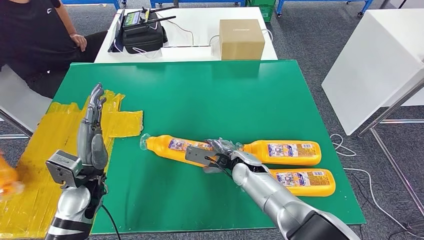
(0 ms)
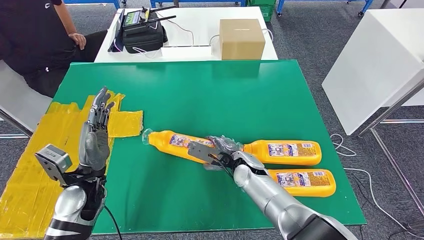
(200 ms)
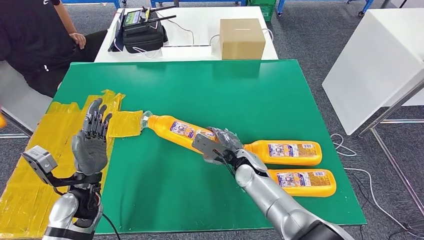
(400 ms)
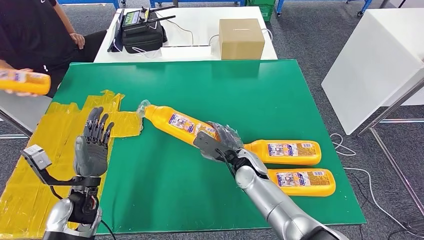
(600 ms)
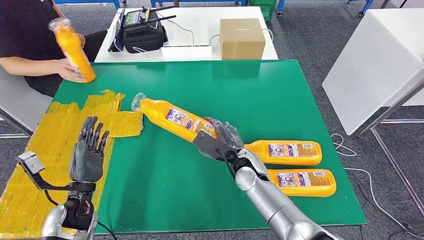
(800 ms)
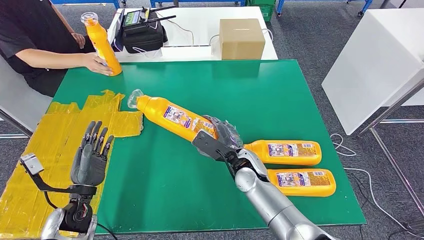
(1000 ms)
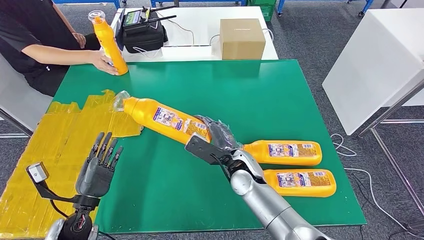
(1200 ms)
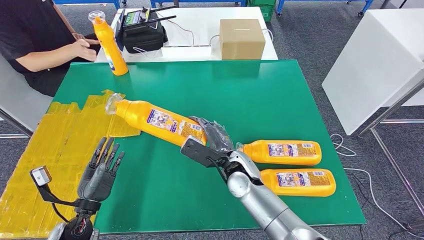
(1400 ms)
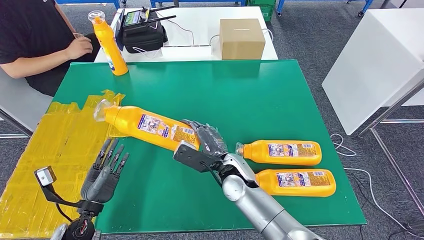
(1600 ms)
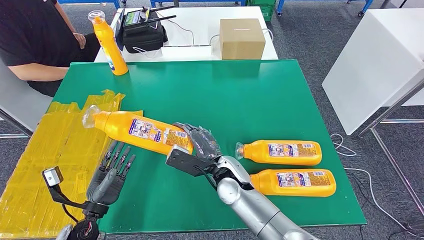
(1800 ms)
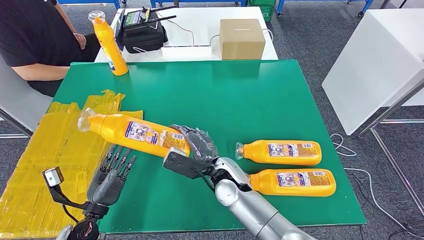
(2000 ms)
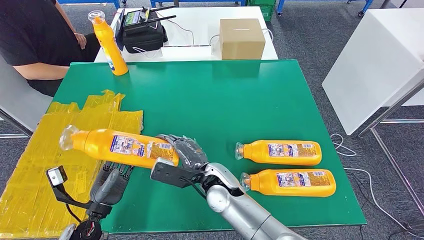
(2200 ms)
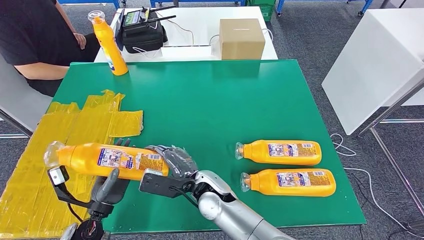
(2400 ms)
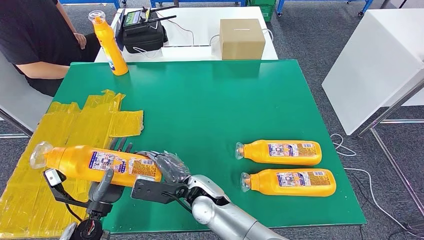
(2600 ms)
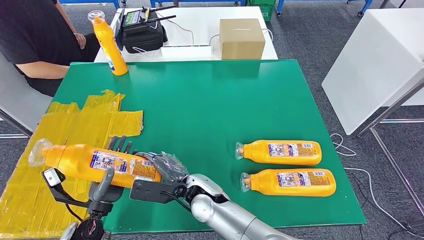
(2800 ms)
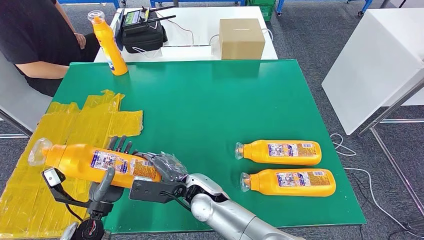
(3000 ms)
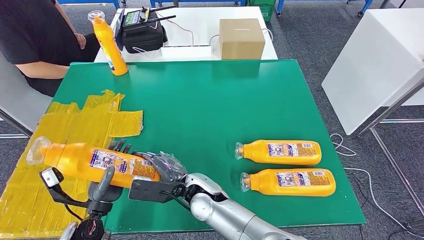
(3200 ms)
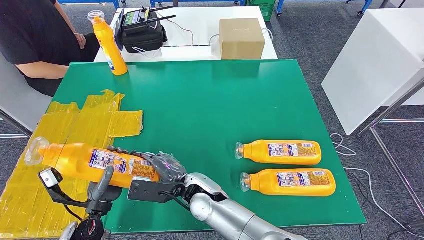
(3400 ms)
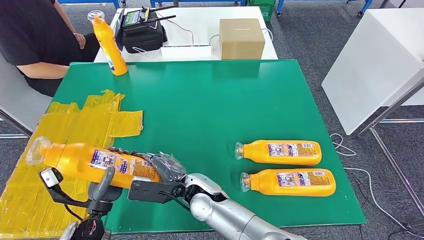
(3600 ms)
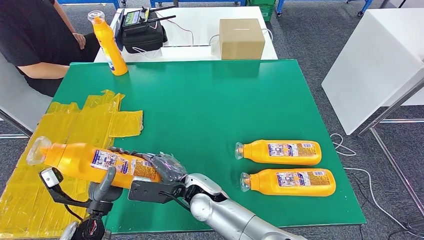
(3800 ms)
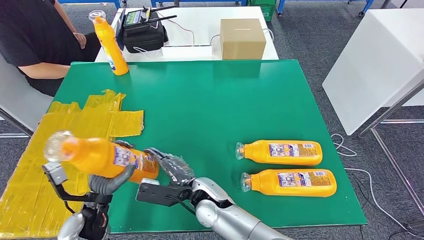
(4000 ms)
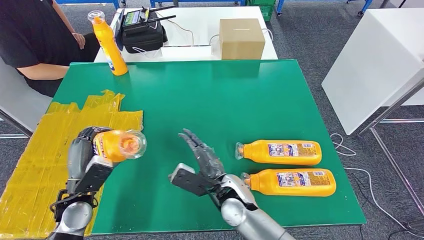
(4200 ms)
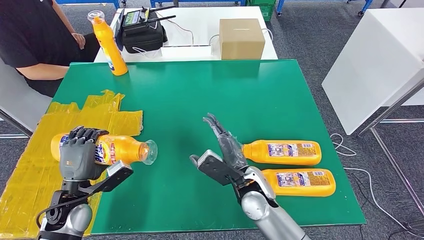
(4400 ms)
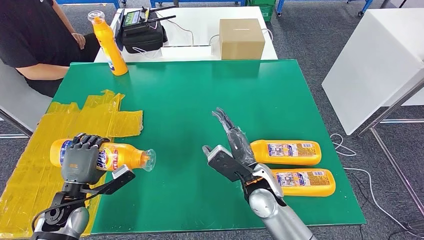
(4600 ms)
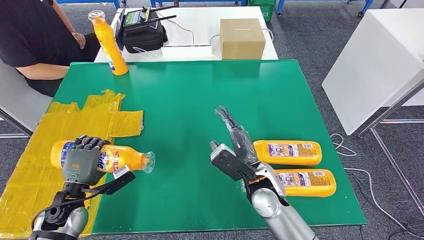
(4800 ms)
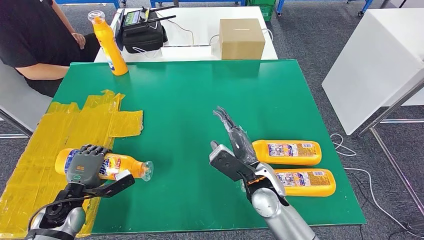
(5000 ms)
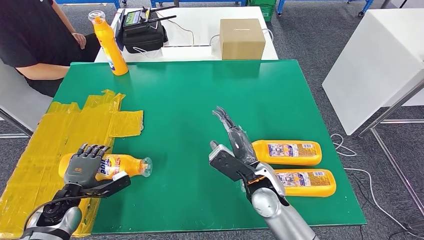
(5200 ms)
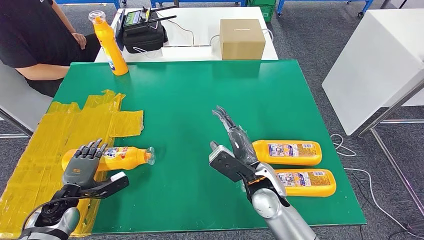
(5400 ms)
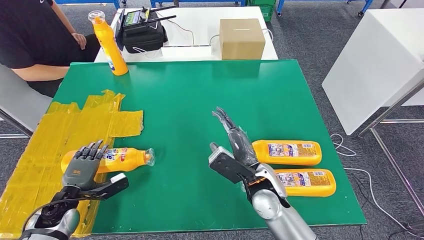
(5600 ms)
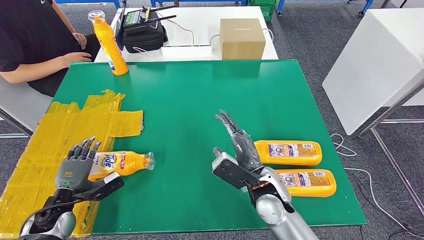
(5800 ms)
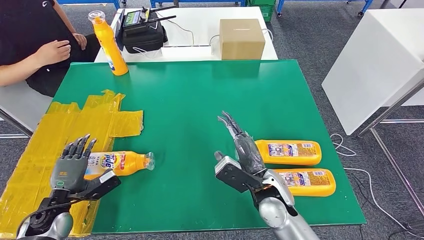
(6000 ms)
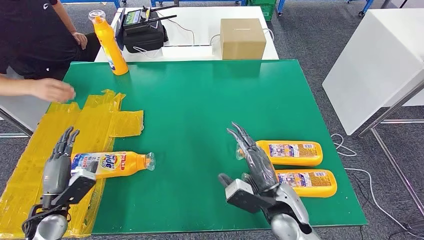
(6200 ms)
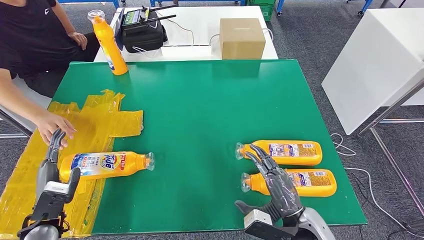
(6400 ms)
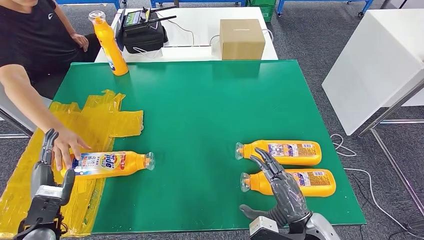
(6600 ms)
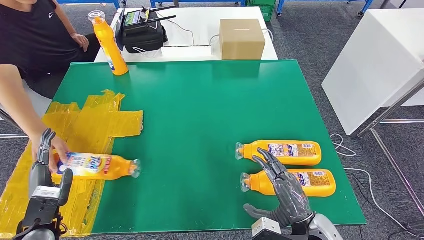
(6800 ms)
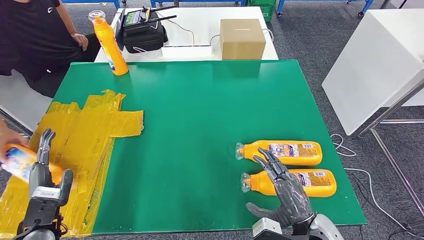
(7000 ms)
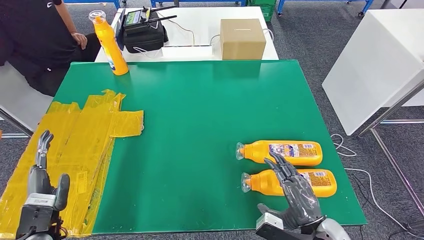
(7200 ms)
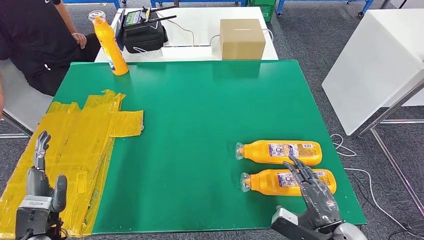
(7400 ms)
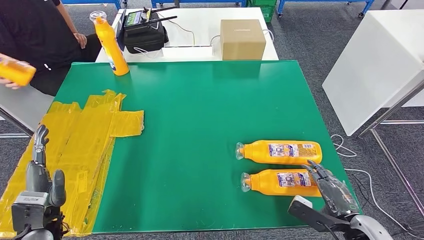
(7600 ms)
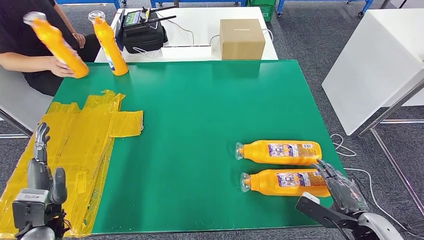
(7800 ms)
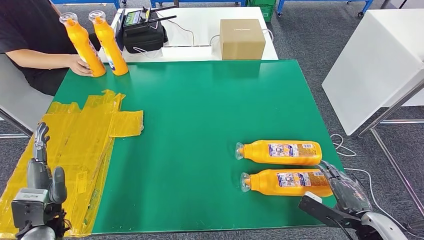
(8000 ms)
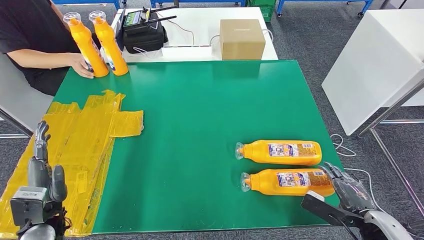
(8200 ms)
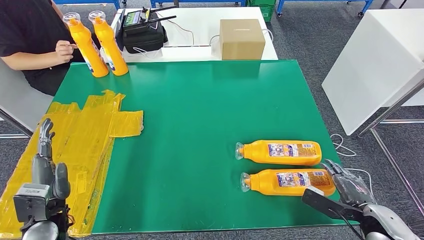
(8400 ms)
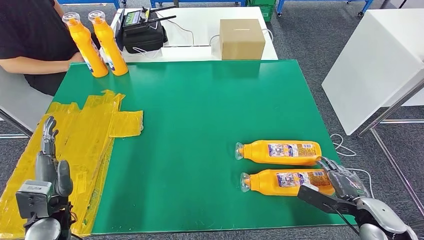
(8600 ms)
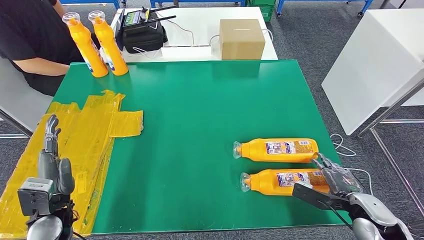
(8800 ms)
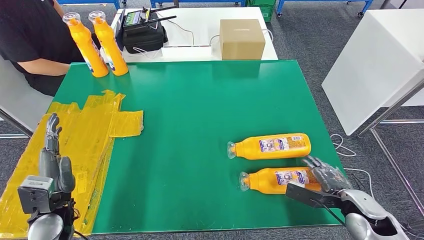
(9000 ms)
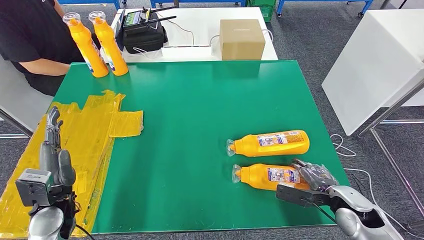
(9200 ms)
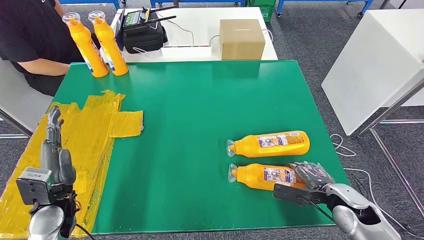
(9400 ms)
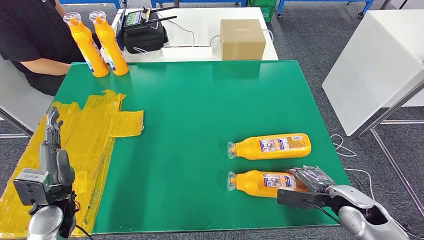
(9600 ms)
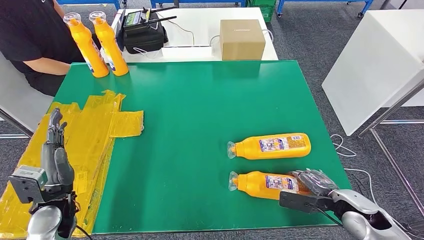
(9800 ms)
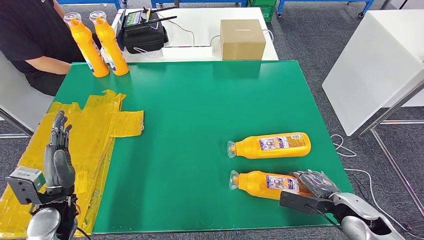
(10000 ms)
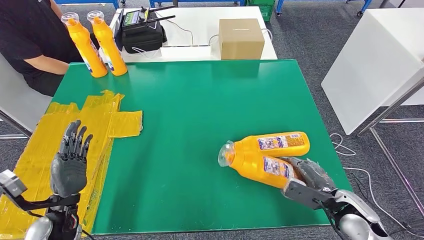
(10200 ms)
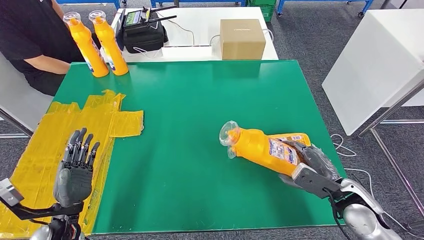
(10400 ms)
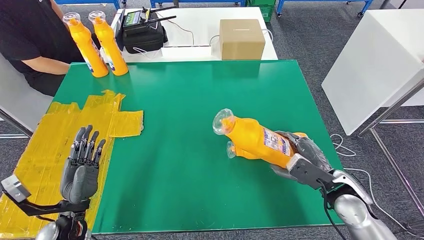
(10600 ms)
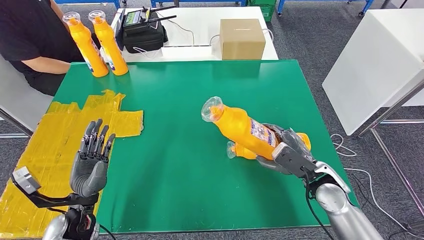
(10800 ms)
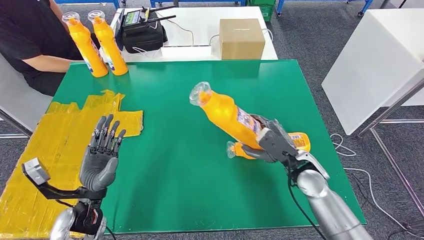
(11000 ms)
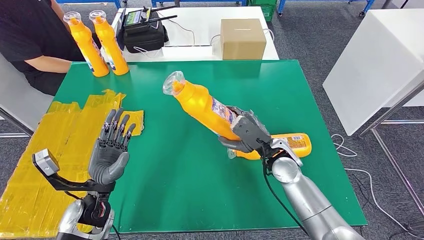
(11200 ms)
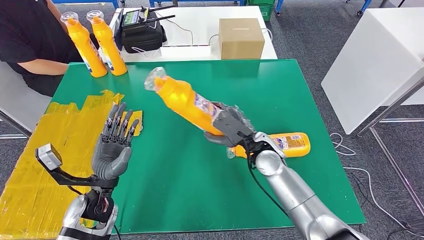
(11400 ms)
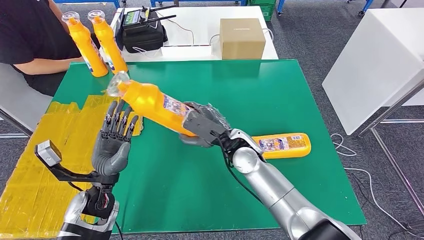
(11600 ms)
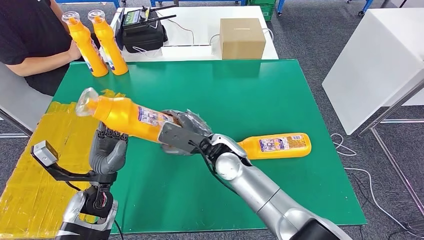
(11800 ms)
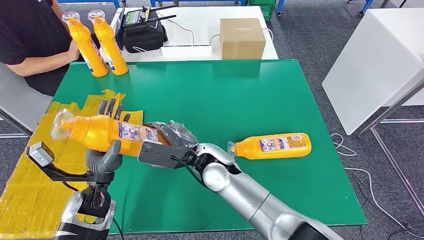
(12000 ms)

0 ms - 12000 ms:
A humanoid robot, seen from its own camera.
Step, 0 ms - 2800 ms: Pick up the fast-moving consumer goods bottle from the table.
Step, 3200 ms - 5600 ms: Flip the fast-moving consumer goods bottle to the front side.
Step, 5800 ms - 11800 ms: Pick up the fast-moving consumer goods bottle from the table.
0 ms - 1600 ms: The left hand goes some 10 cm downward and backward. Meanwhile the right hand ends up approximately 5 cm from where it was.
1600 ms - 3000 ms: The right hand goes roughly 10 cm to the left and backward.
3000 ms - 4400 ms: The right hand is displaced to the right by approximately 10 cm. Meanwhile the left hand changes place by about 5 cm.
4400 ms - 6000 ms: The left hand shifts some 10 cm to the left and downward.
6000 ms - 7600 ms: The right hand heads to the right and backward, covering some 25 cm. The left hand shifts about 10 cm upward and backward.
7600 ms - 9000 ms: The right hand goes roughly 5 cm forward.
9000 ms - 10400 ms: The right hand moves about 5 cm.

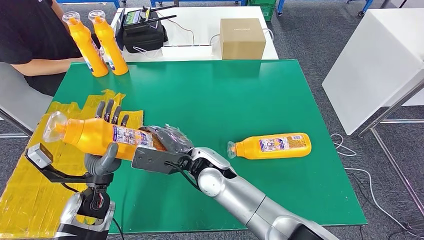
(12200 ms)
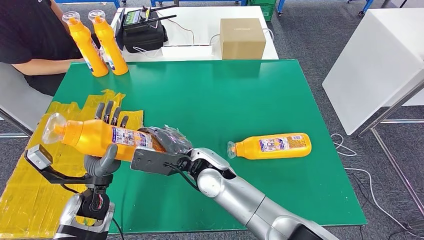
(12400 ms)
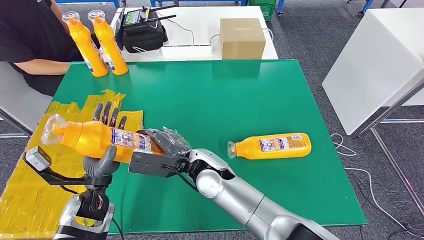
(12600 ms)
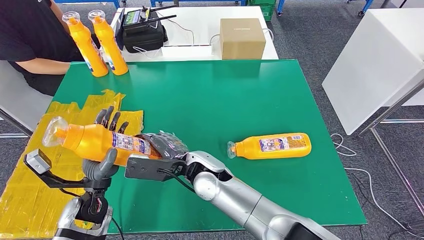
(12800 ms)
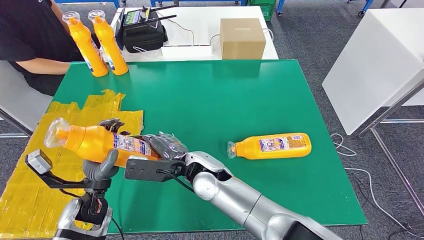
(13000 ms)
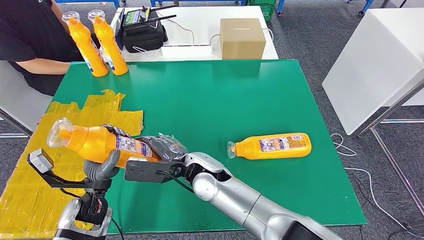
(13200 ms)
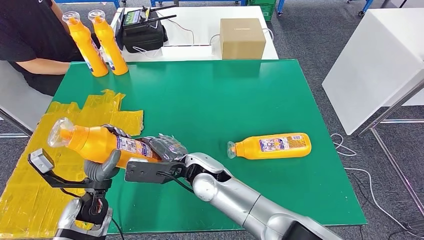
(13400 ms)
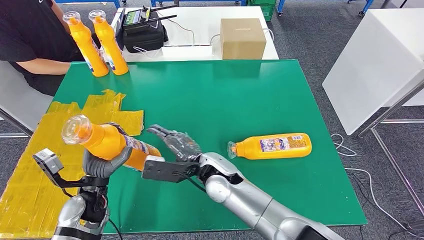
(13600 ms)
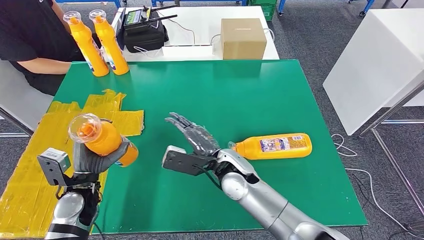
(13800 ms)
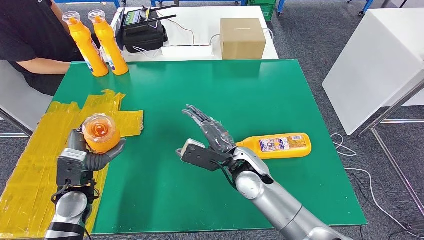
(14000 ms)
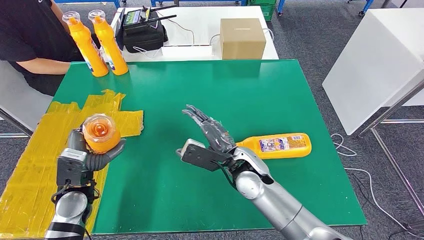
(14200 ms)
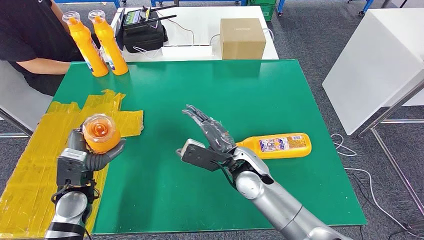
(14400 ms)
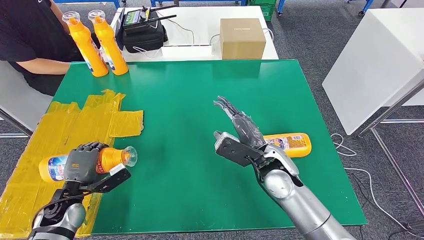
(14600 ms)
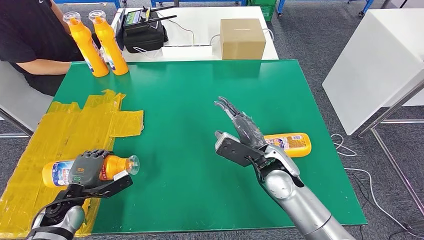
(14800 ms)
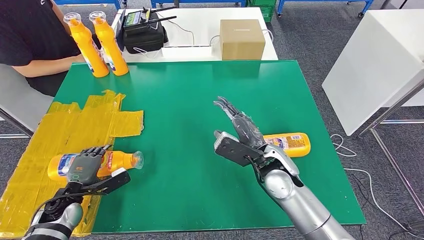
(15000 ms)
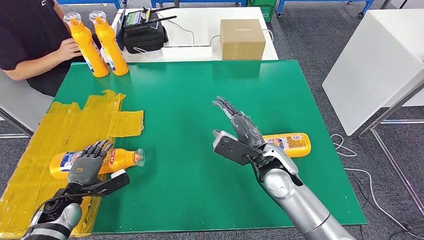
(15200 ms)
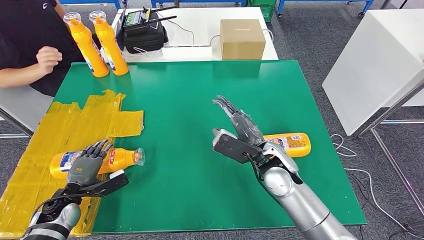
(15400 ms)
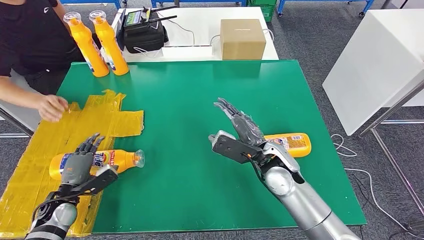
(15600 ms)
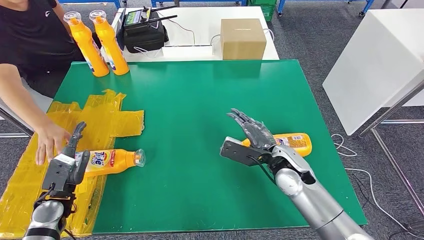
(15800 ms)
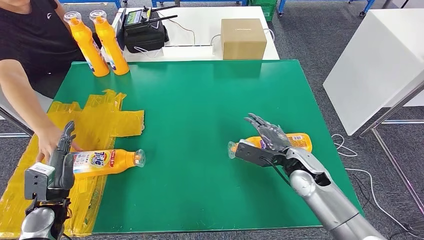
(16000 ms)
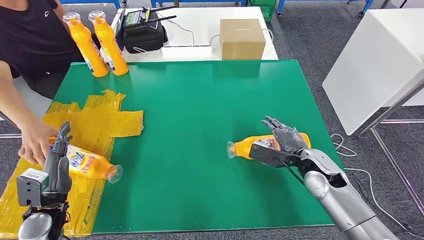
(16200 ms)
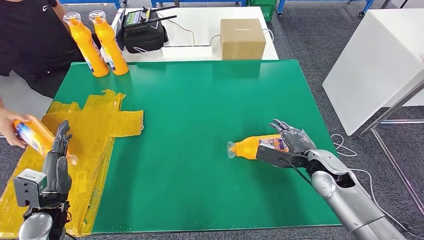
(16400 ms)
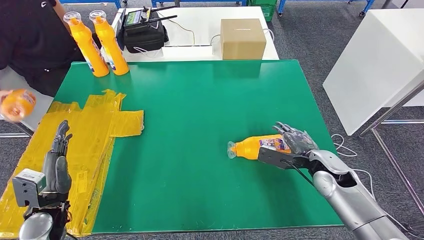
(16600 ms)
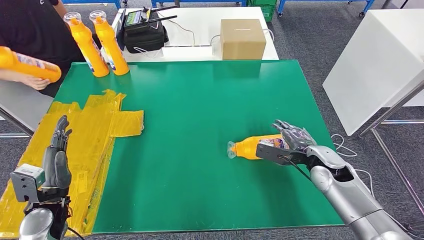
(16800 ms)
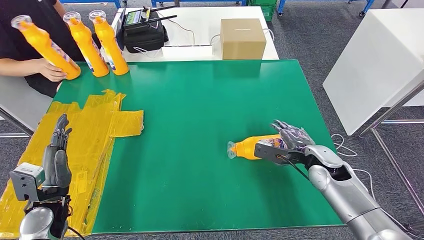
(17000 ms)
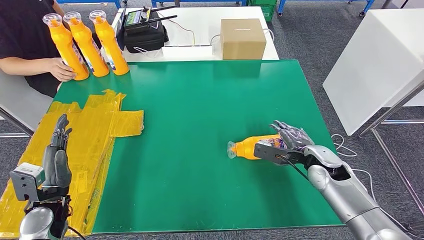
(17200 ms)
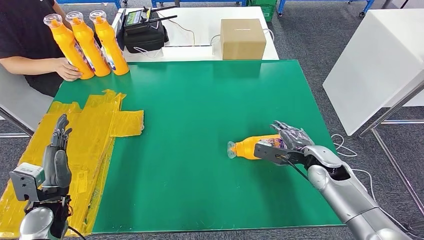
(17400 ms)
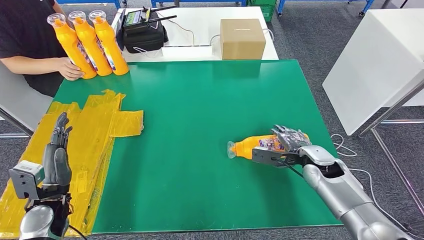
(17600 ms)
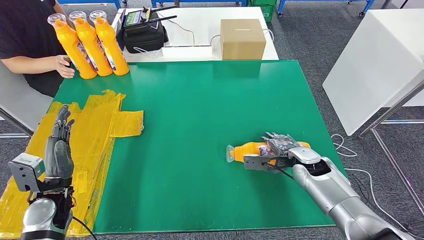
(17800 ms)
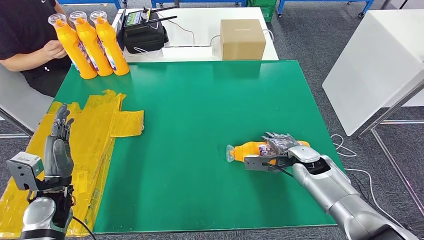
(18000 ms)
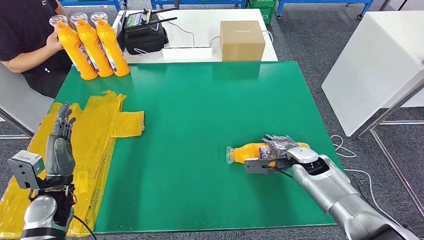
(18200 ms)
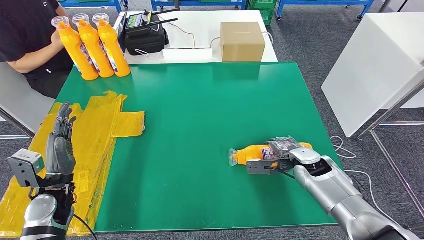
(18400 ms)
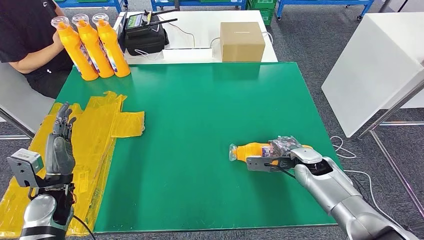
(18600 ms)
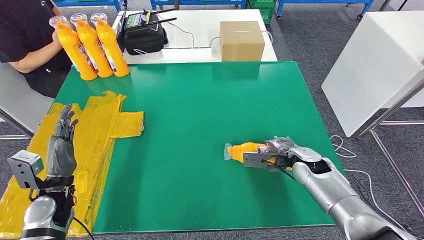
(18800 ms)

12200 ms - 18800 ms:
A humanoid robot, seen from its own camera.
Step, 12200 ms - 15600 ms: Flip the fast-moving consumer goods bottle to the front side.
12200 ms - 13800 ms: The right hand is displaced to the right by roughly 5 cm.
